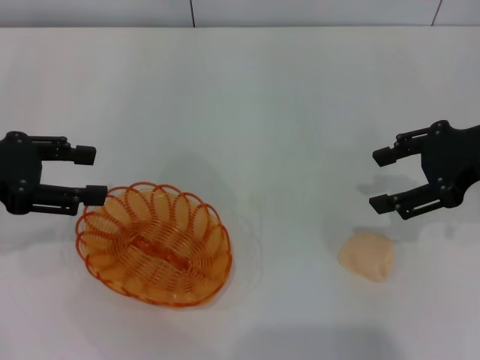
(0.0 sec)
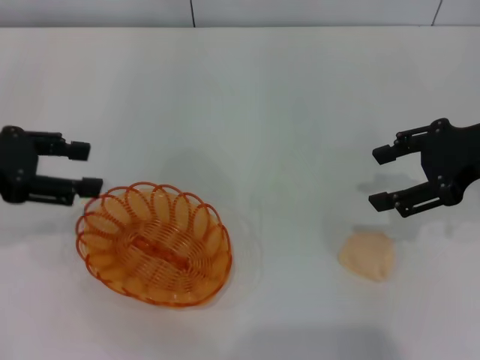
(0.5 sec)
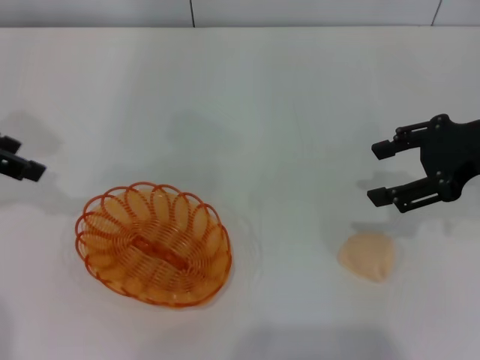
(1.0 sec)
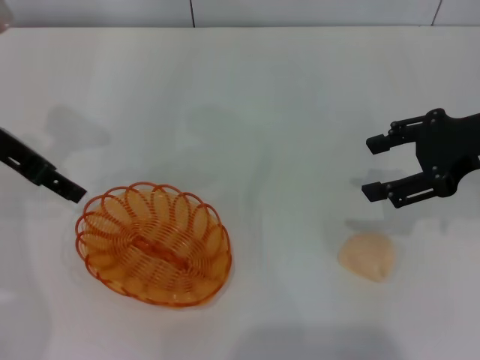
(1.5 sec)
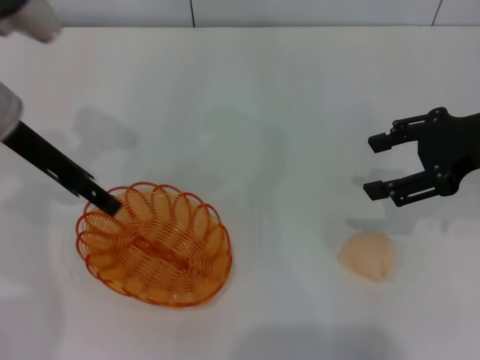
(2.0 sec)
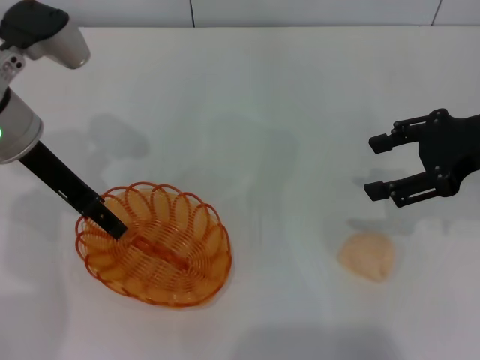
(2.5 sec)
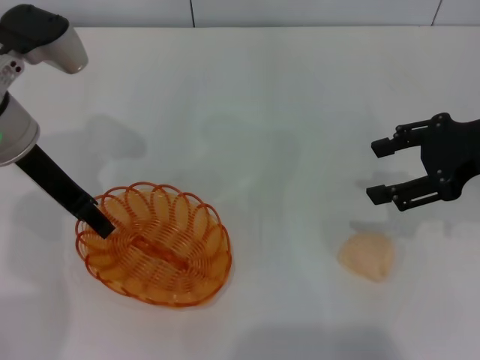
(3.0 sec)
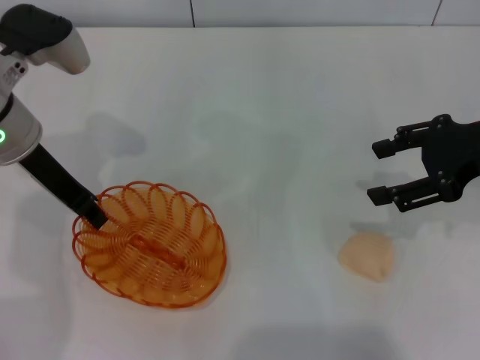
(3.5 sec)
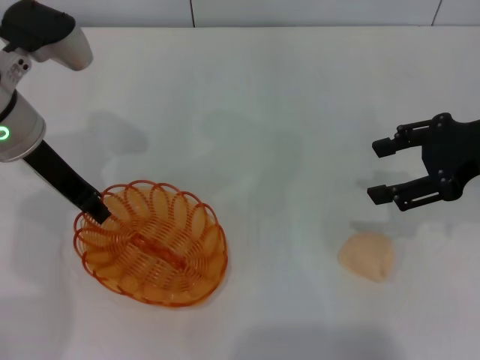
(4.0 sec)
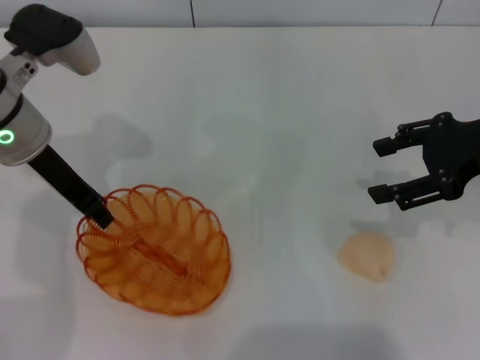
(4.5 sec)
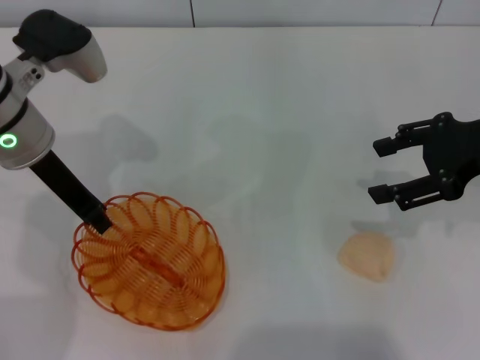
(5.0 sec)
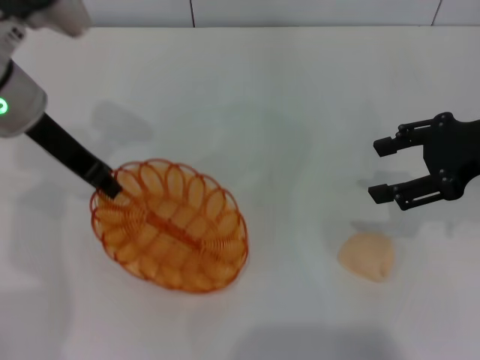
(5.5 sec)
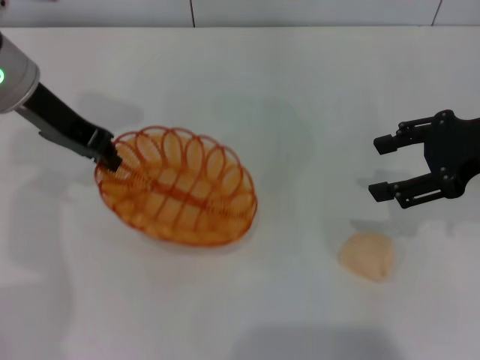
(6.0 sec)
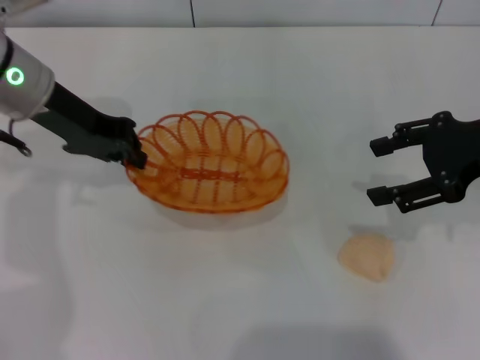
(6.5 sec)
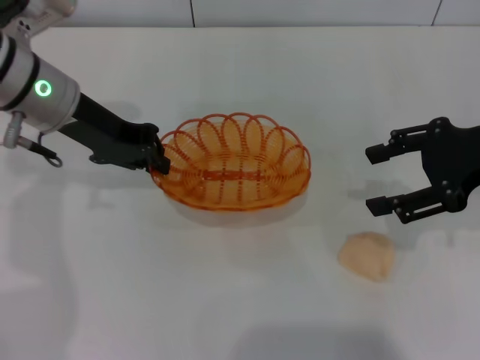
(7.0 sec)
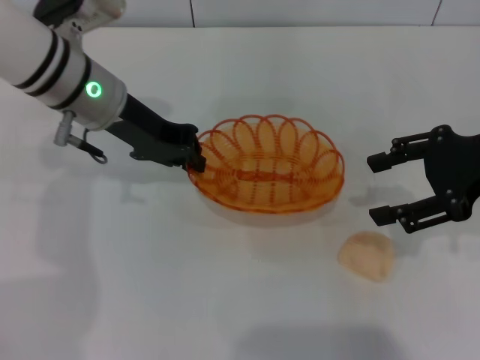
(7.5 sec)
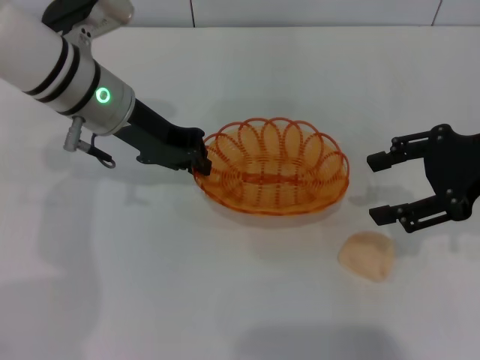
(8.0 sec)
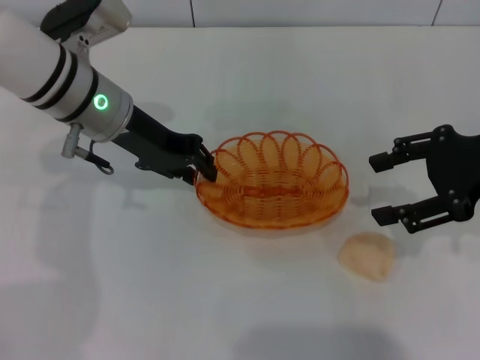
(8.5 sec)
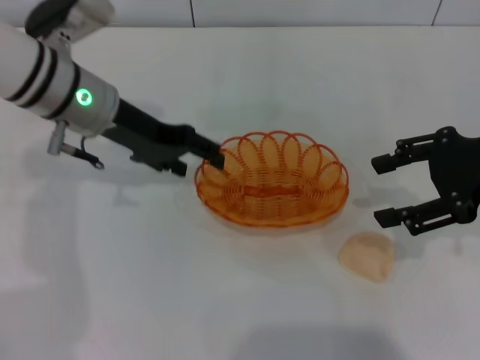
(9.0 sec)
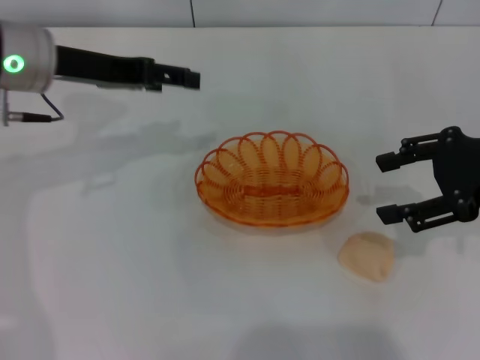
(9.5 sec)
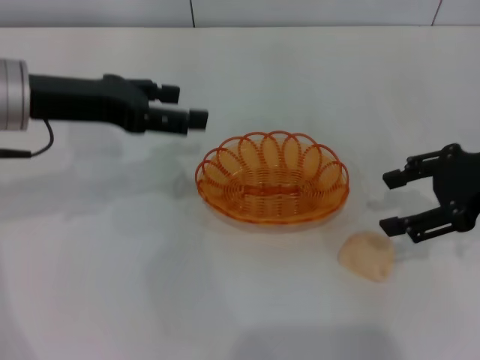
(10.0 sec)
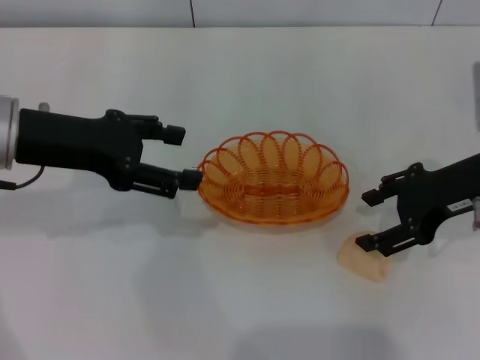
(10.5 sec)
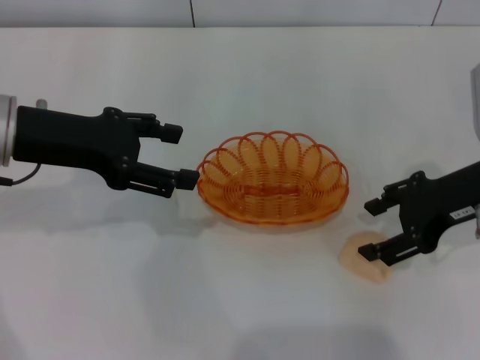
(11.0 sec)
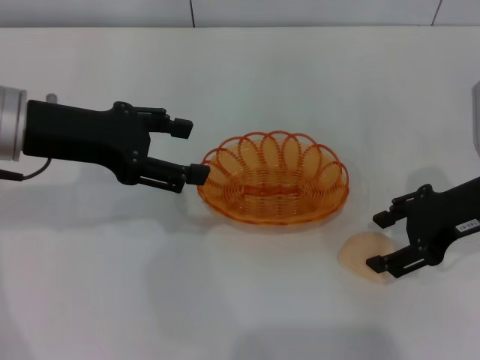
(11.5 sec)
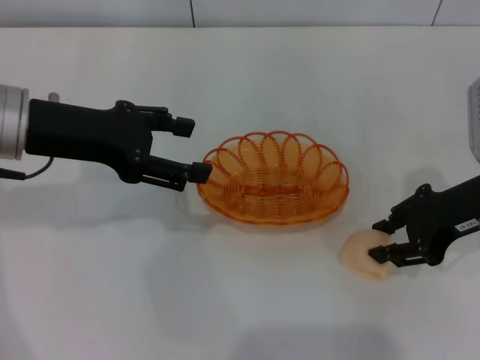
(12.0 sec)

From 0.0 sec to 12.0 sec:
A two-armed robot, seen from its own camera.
Step, from 0.0 sec to 5.5 sec: Pick up the basket with the left gripper.
Step, from 6.0 sec to 9.0 sec: Place the basket in the center of view with the left gripper.
From 0.0 sec to 2.0 sec: The left gripper shifts about 10 cm to the right and forward.
From 2.0 sec to 4.0 sec: The left gripper closes up.
From 6.0 sec to 8.0 sec: The left gripper moves to the right and downward, approximately 10 cm.
From 8.0 sec to 10.0 sec: The left gripper heads to the left and backward, covering approximately 10 cm, and opens up.
From 10.0 sec to 12.0 sec: There are only small adjustments of the grippers.

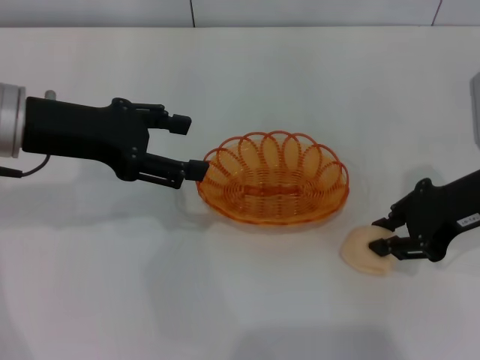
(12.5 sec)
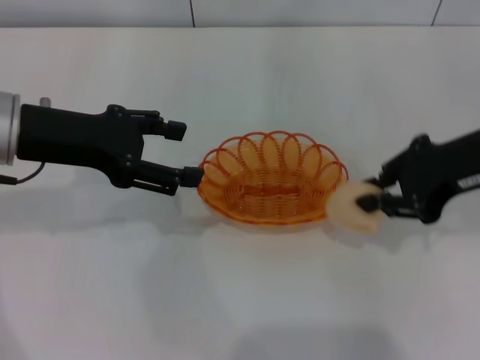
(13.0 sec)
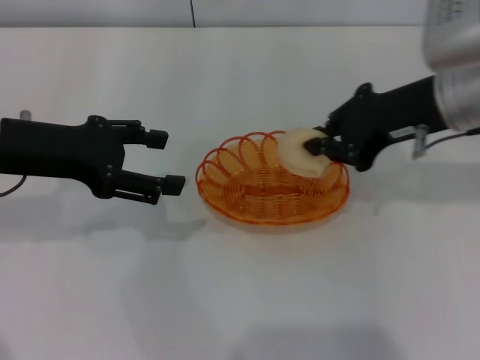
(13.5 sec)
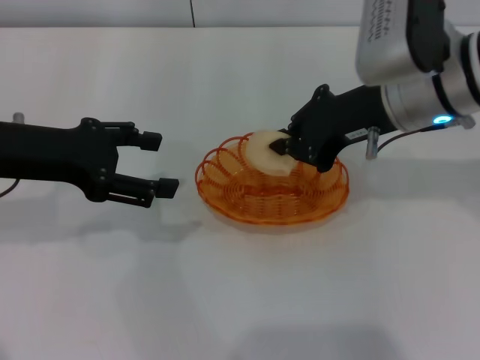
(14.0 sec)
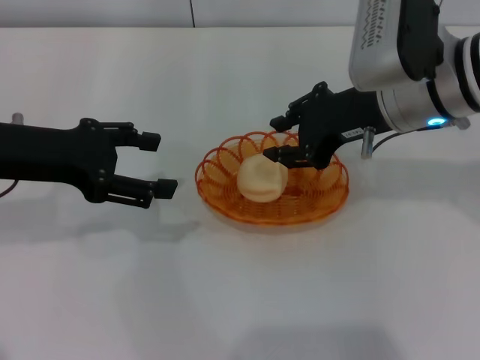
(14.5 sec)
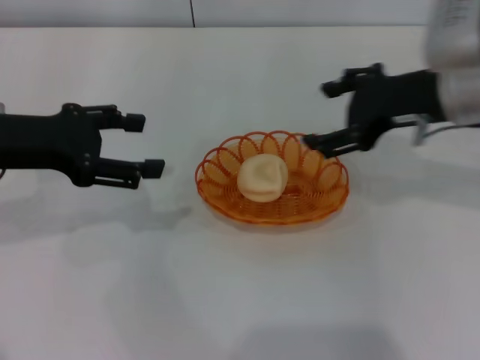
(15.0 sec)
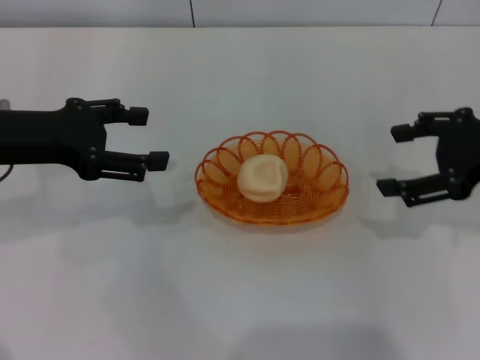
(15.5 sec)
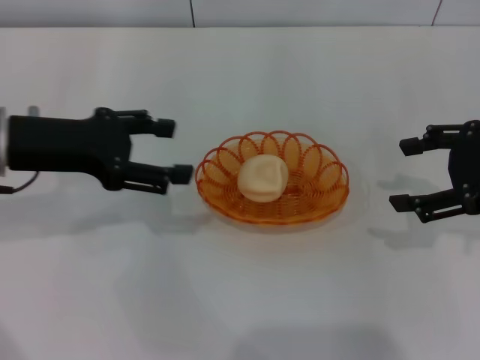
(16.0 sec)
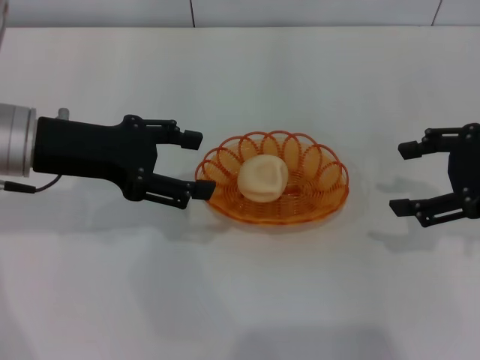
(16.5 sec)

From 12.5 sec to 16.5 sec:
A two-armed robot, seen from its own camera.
Step, from 13.0 sec to 14.5 sec: Place the egg yolk pastry into the basket with the right gripper.
From 12.5 sec to 14.5 sec: The right gripper moves to the left, approximately 10 cm.
From 14.5 sec to 16.5 sec: The right gripper goes approximately 15 cm to the right, and opens its fingers.
